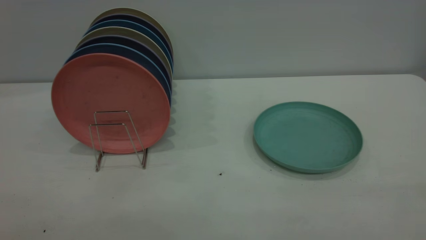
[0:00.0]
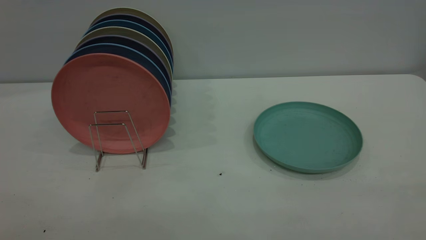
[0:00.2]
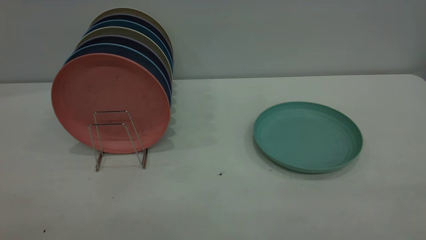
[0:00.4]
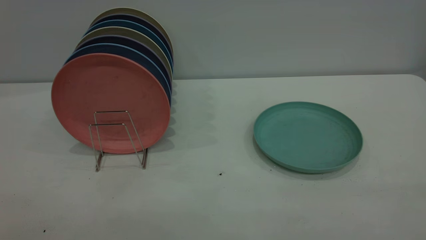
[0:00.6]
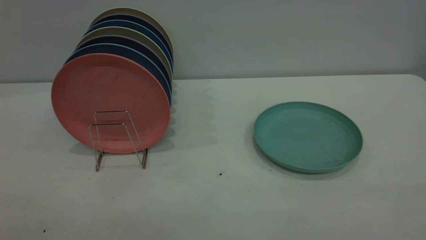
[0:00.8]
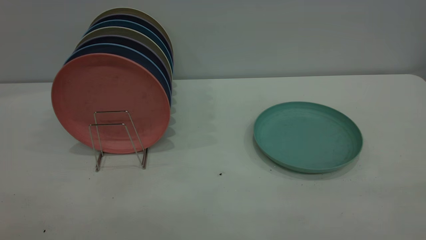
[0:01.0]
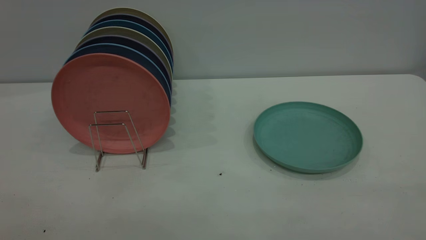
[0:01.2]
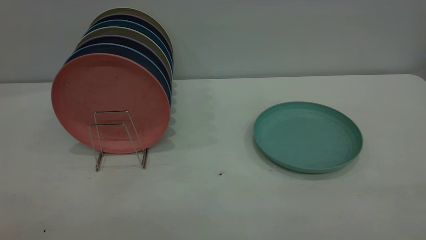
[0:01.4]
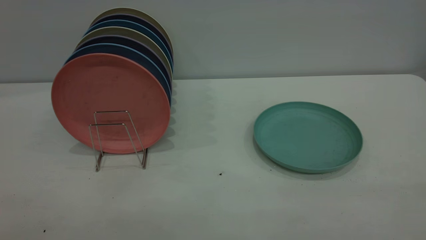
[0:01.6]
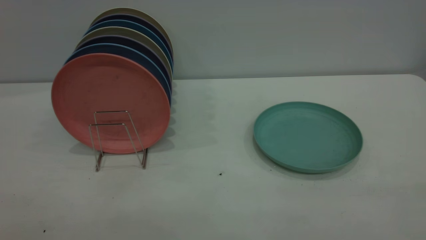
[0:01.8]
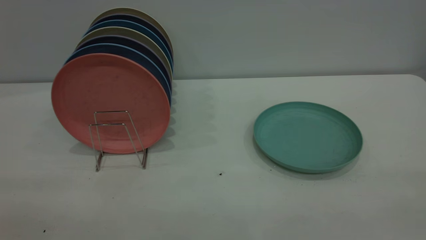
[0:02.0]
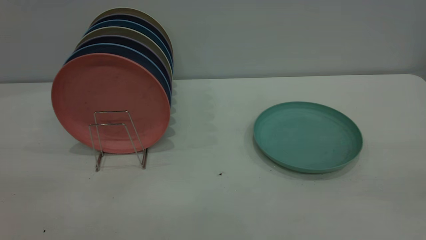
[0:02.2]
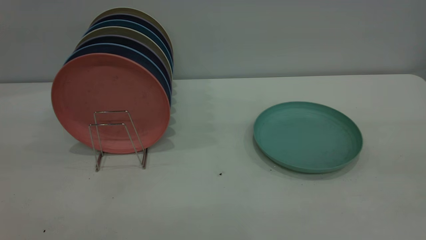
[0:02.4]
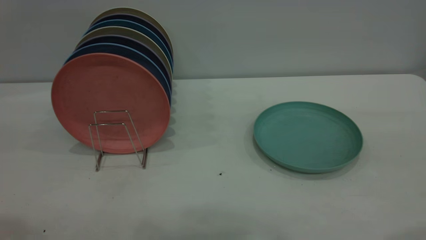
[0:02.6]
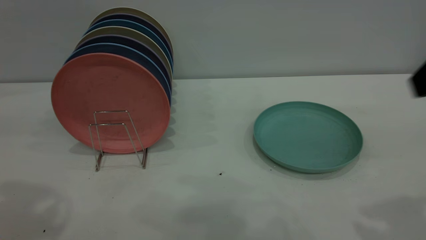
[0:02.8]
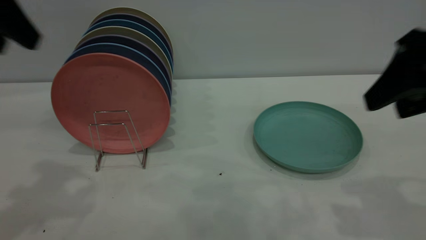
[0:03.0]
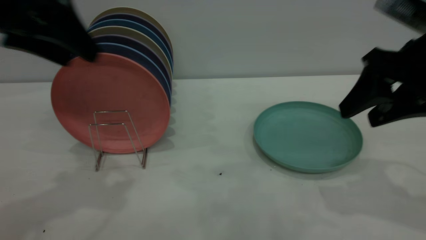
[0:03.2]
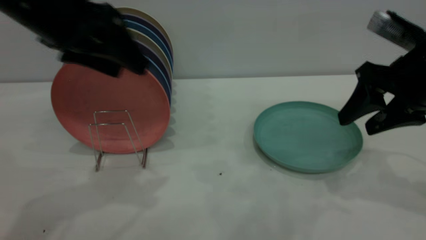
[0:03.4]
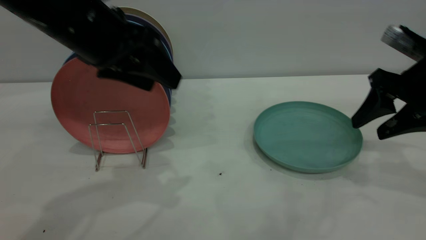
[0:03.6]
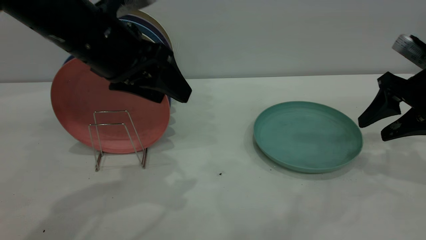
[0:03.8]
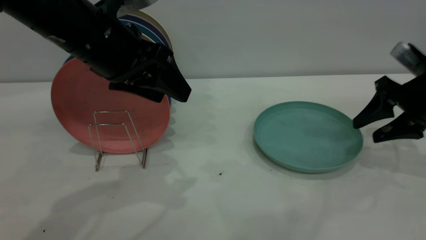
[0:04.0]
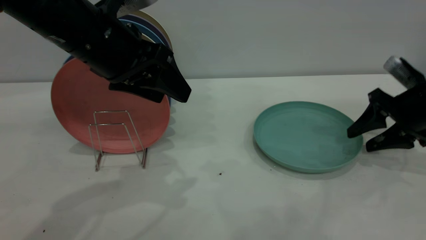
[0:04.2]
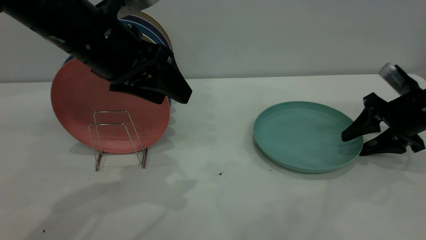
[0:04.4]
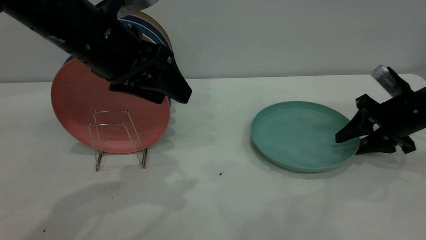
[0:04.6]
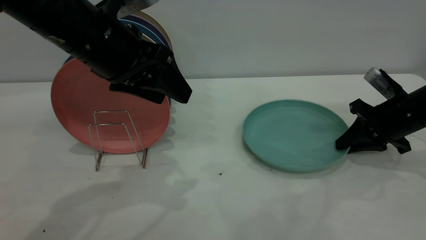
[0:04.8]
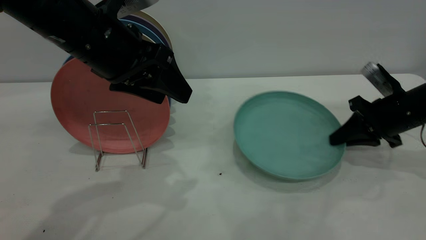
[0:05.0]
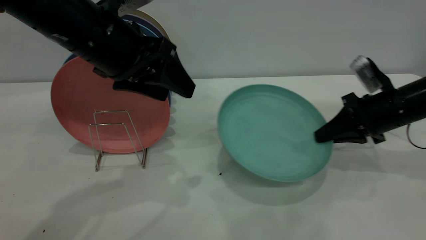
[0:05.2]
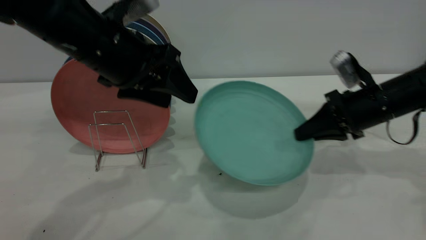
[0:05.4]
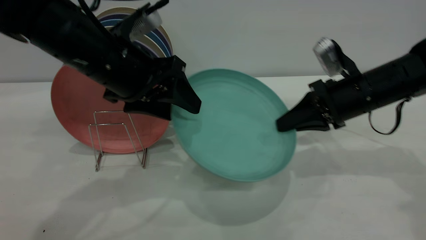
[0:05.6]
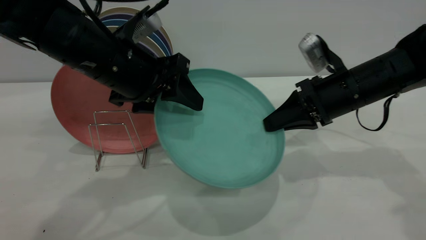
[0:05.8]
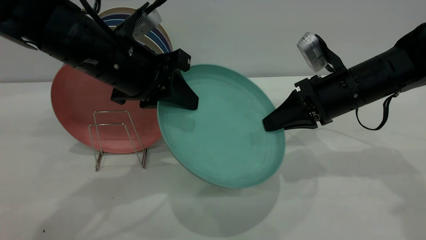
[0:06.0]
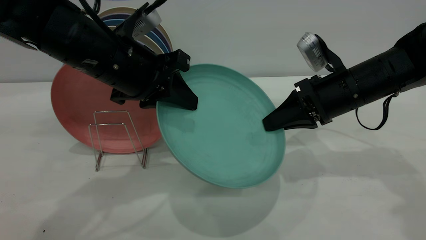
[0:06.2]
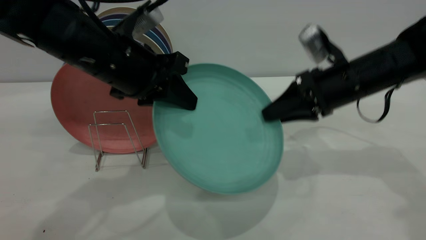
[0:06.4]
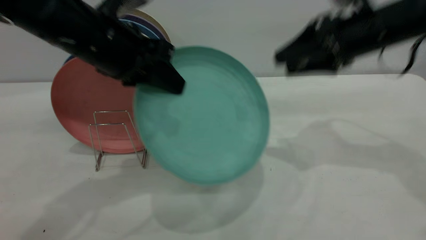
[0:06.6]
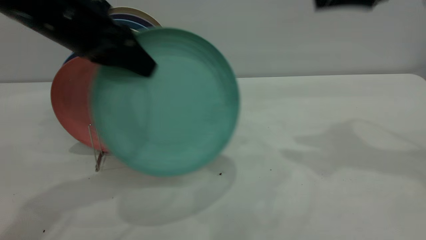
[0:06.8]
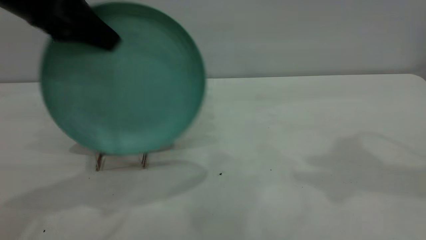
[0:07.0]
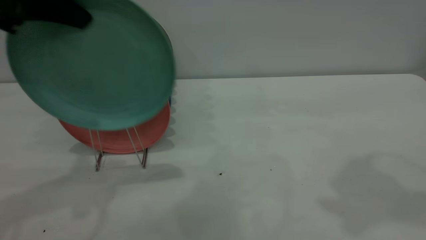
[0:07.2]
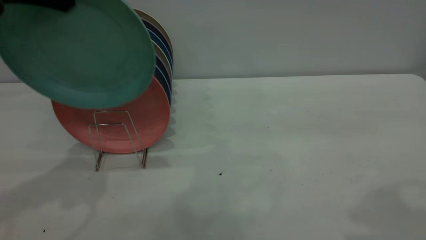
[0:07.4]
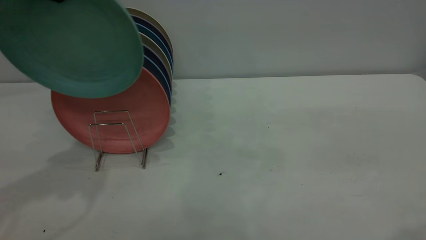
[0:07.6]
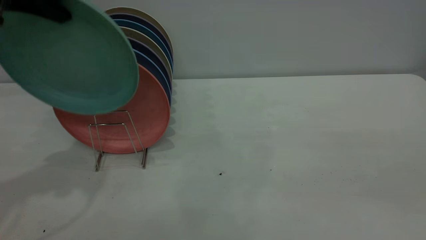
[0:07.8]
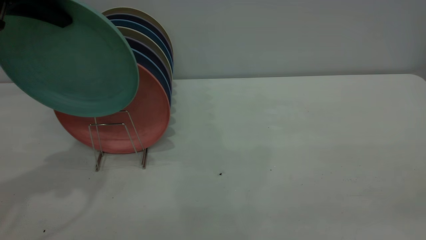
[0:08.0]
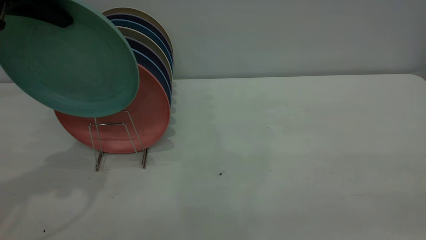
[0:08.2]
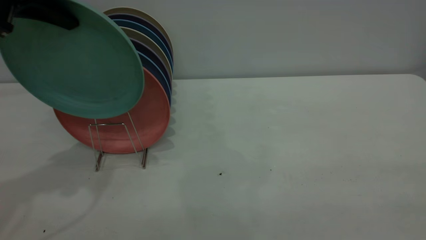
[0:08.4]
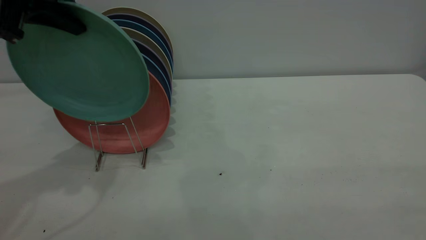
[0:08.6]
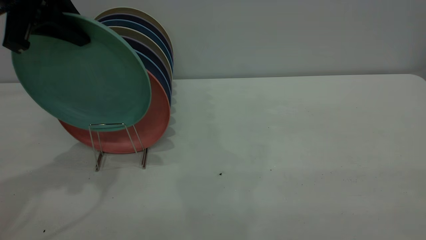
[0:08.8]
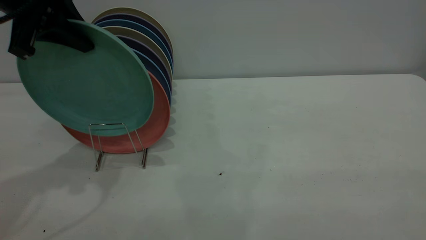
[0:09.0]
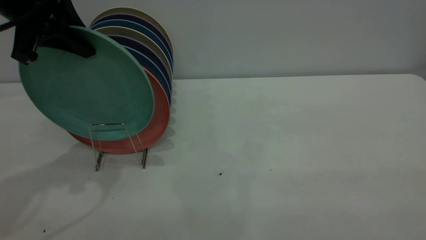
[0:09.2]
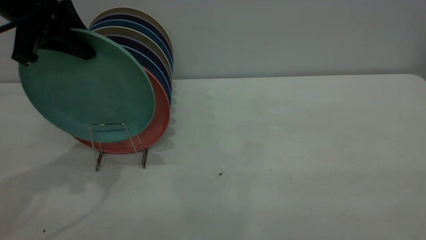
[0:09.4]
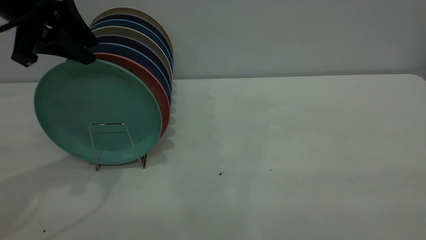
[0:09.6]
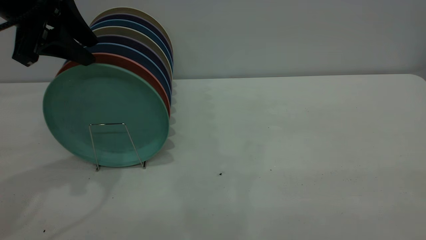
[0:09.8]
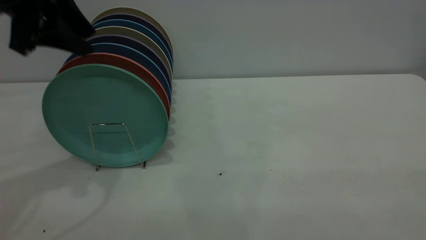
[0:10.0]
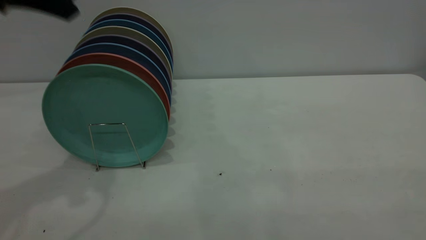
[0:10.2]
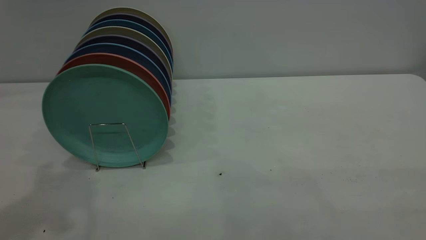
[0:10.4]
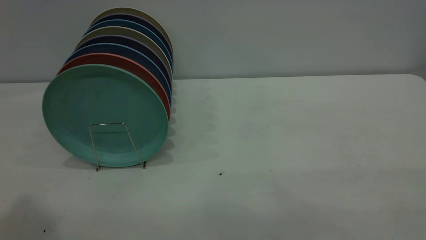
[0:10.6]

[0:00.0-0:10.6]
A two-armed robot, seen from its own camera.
Task of the whole recording: the right gripper grasp the green plate, the right gripper pass the green plate to the left gripper, and the left gripper place the green plate on the plate rack.
Step, 0:00.0 to 0:05.2: Pick up the plate with the right gripper.
Step, 0:05.4 to 0:06.4: Pass the plate from the right gripper to the left gripper.
Step, 0:06.8 to 0:09.8: Place the plate on the shelf.
0:00.0 to 0:01.6: Both grippers stay put.
0:01.6 to 0:03.0: The two grippers go some 30 cm forward. The left gripper opens.
0:03.0 to 0:04.6: The left gripper goes about 15 cm to the right and downward; the right gripper moves downward and forward, some 25 cm.
0:04.6 to 0:06.0: The left gripper closes up; the right gripper moves to the left and upward, about 15 cm, and closes up.
0:06.0 to 0:07.6: The right gripper goes roughly 35 cm backward and upward, and opens its fingers. The left gripper travels upward and to the left by about 20 cm.
0:07.6 to 0:09.0: The left gripper shifts some 5 cm downward.
0:09.0 to 0:10.6: The left gripper travels backward and upward by about 25 cm, and opens.
